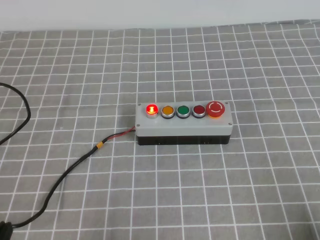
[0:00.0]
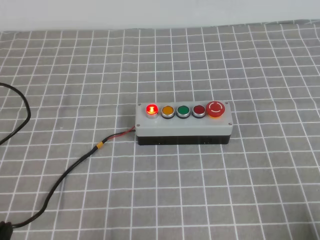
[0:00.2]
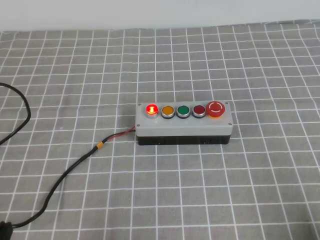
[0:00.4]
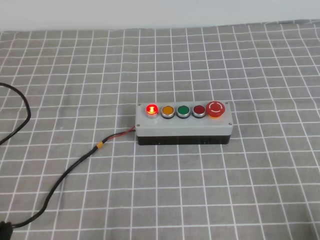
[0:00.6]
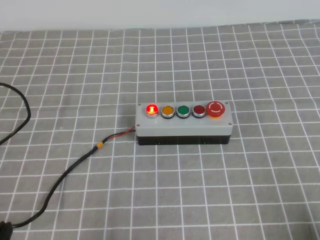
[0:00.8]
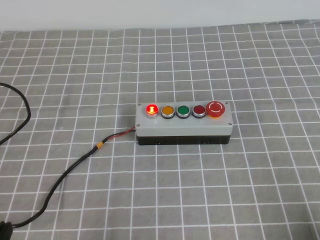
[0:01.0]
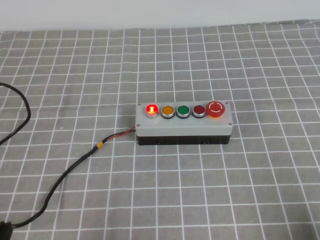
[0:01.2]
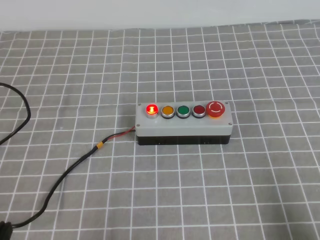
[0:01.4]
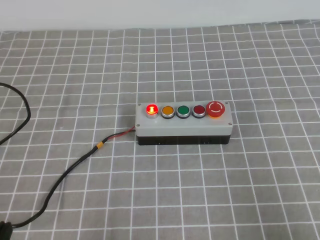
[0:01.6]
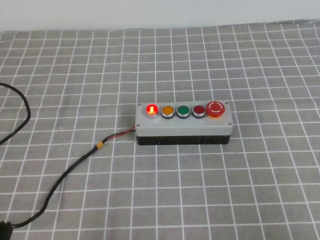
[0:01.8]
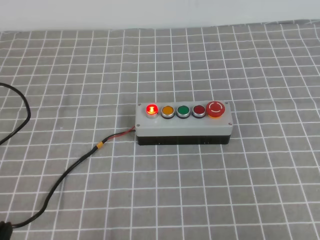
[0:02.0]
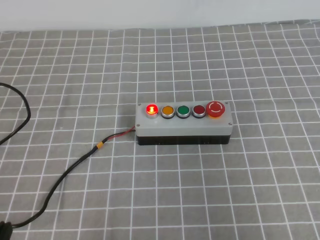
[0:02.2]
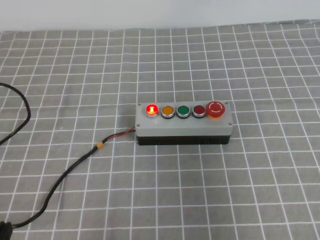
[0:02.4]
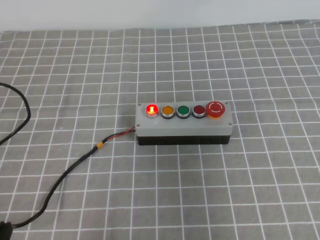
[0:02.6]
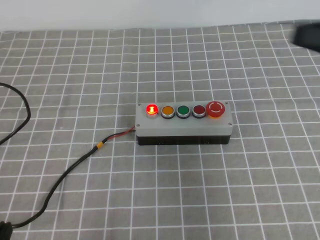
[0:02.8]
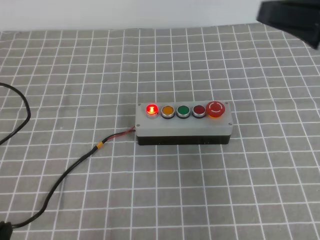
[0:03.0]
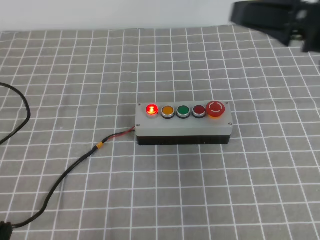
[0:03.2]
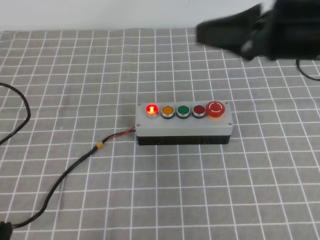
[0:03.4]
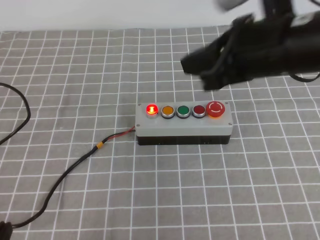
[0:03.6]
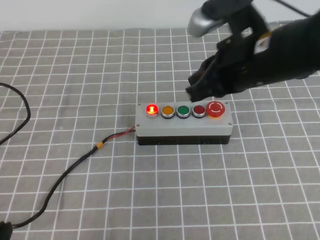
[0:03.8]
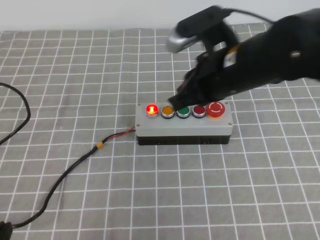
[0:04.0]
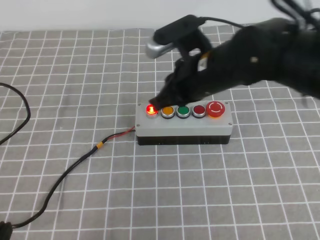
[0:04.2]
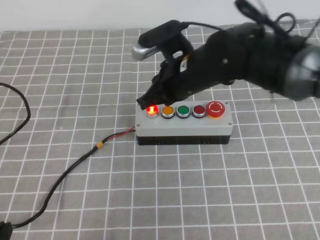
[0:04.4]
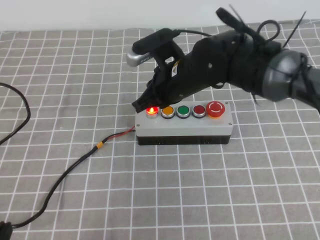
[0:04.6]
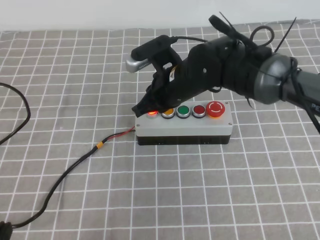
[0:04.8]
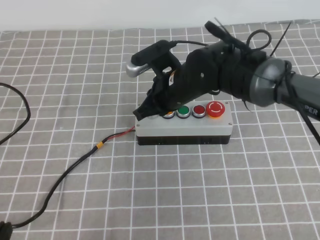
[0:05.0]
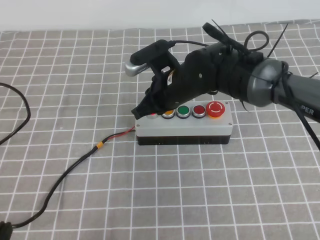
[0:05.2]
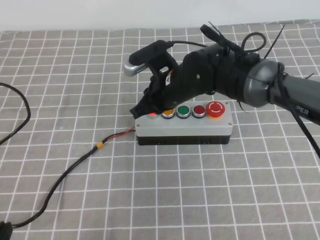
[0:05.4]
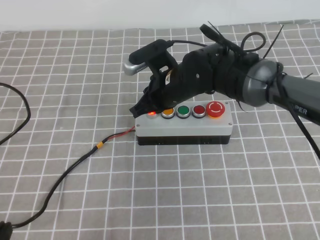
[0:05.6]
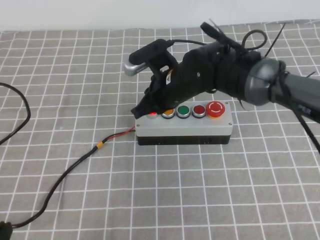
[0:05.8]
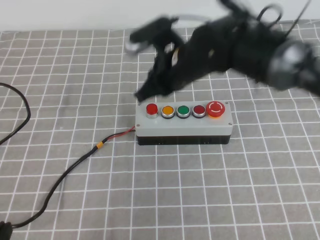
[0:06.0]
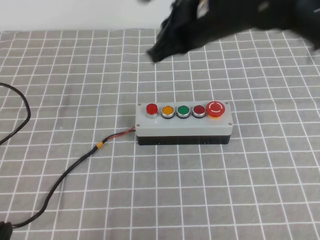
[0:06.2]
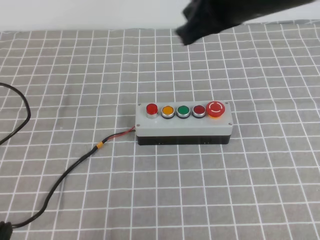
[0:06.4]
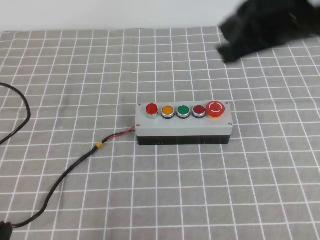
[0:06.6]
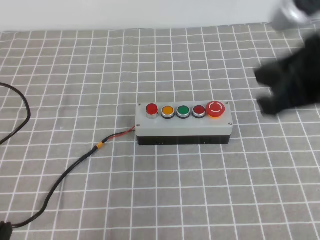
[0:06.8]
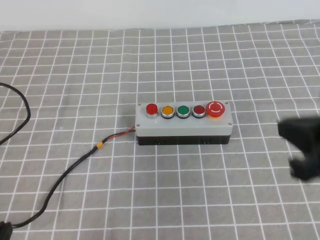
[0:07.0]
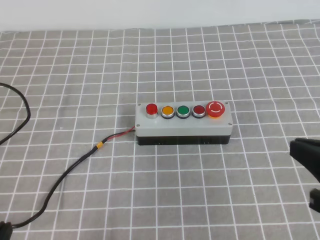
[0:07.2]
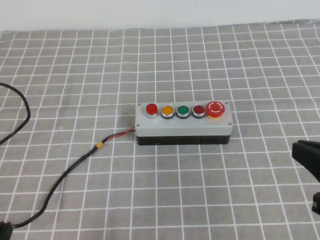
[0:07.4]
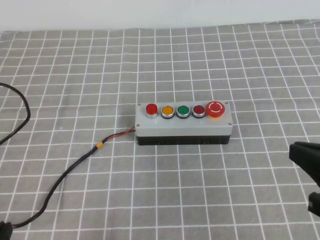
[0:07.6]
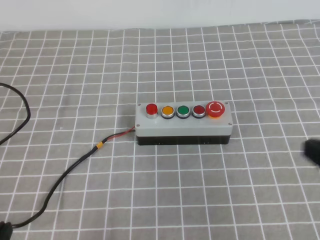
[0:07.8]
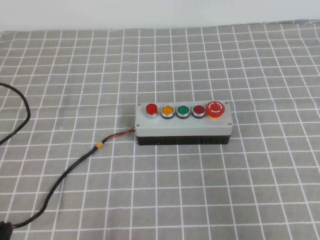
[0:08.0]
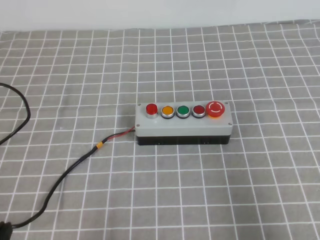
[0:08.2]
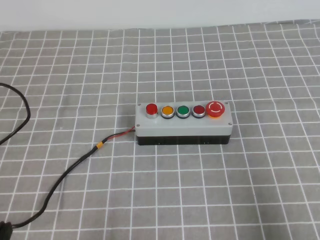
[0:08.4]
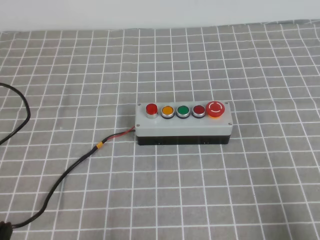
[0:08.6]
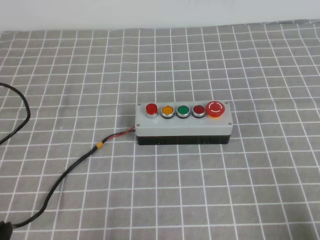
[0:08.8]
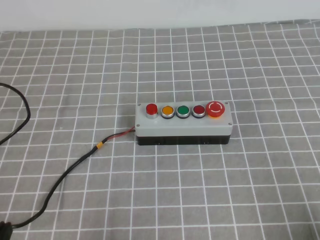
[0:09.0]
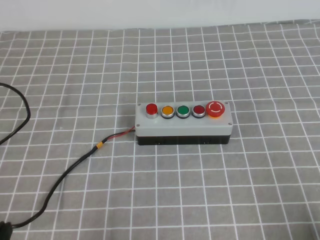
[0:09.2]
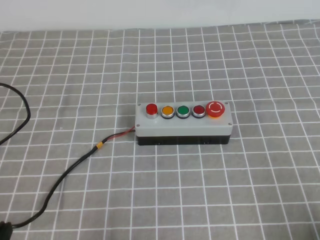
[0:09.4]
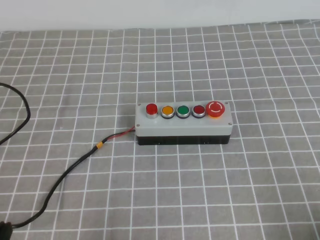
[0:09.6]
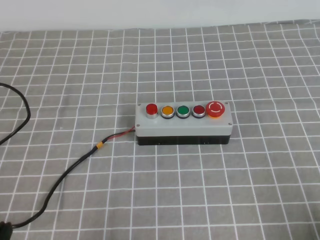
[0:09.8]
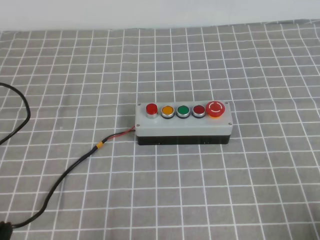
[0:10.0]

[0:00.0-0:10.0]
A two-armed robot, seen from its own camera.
Task of the whole recording: press the button switch on the grey tablecloth with the right gripper to turn off the button.
Step, 0:00.0 to 0:10.0: Press the button to turn off.
0:01.4 to 0:02.8: The right gripper travels upward and forward by about 25 cm.
0:02.8 to 0:04.2: The right gripper travels to the left, forward and downward by roughly 25 cm.
0:04.2 to 0:05.8: The right gripper moves downward and forward, approximately 10 cm.
0:05.8 to 0:07.2: The right gripper travels backward and to the right by roughly 30 cm.
0:07.2 to 0:08.6: The right gripper moves to the right, backward and downward, about 15 cm.
0:08.6 to 0:10.0: The right gripper travels downward by some 5 cm.
